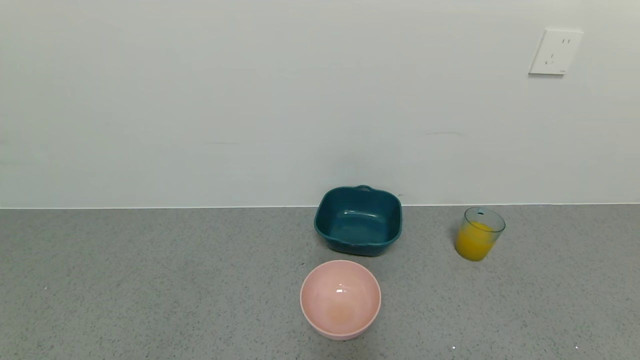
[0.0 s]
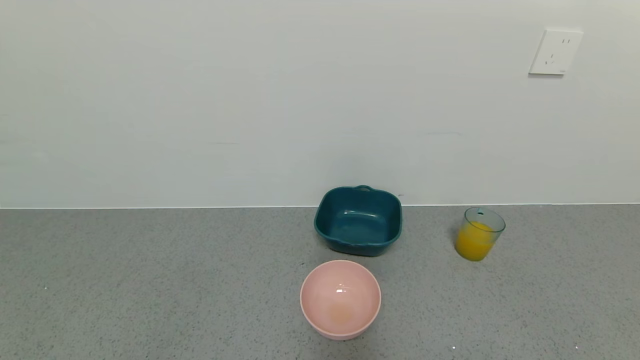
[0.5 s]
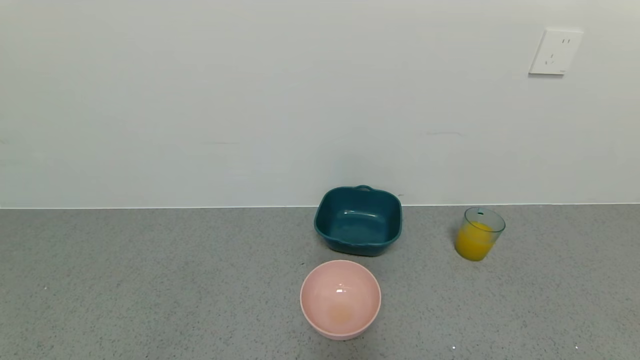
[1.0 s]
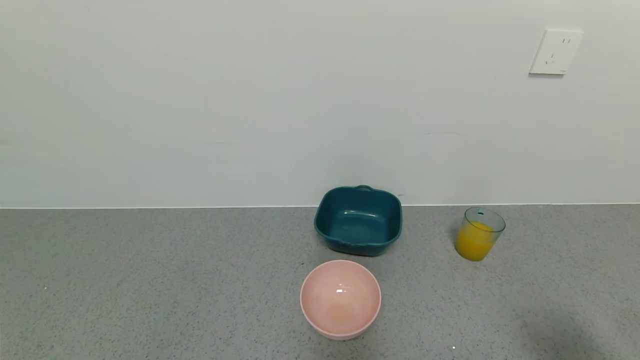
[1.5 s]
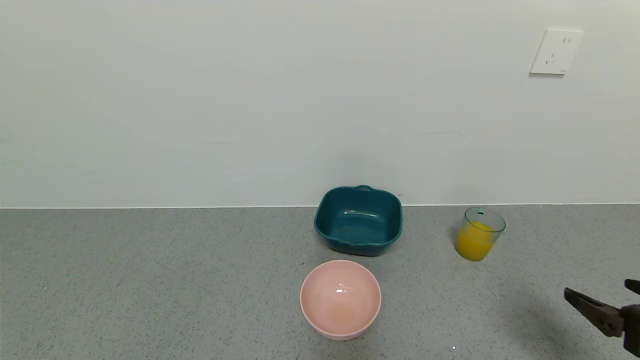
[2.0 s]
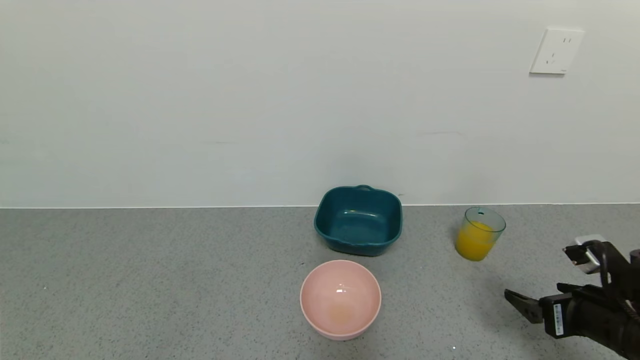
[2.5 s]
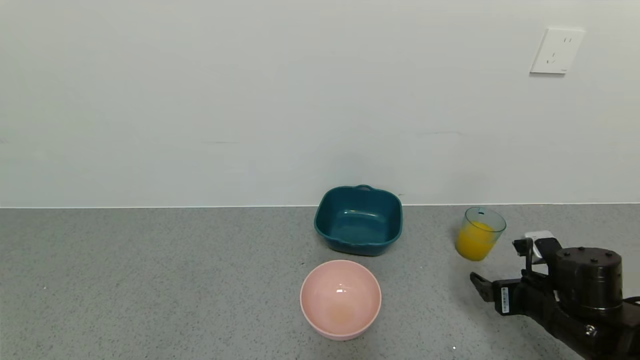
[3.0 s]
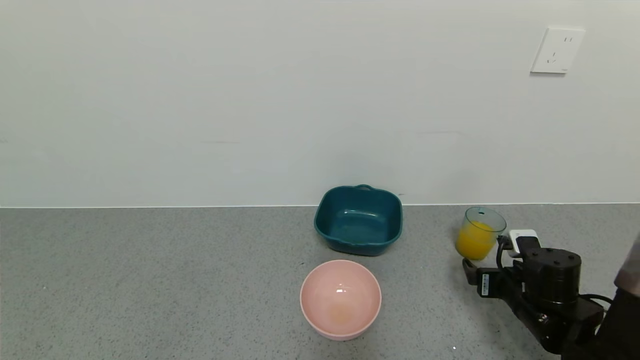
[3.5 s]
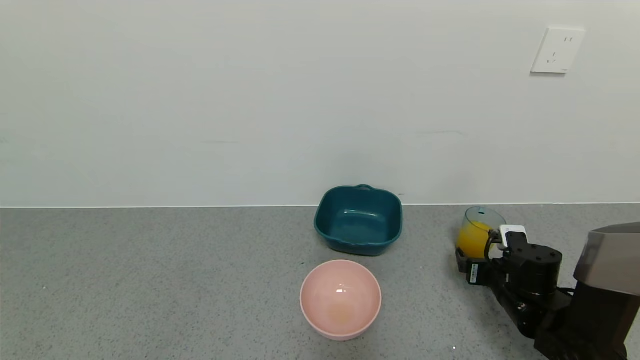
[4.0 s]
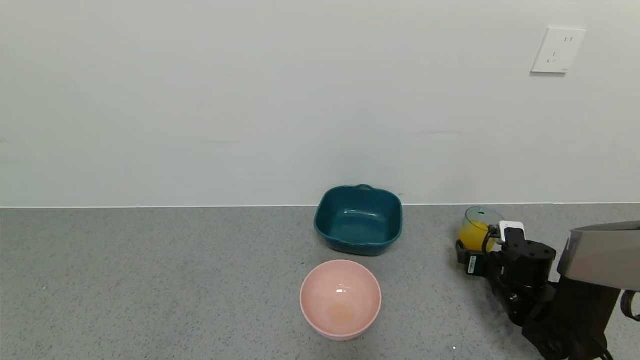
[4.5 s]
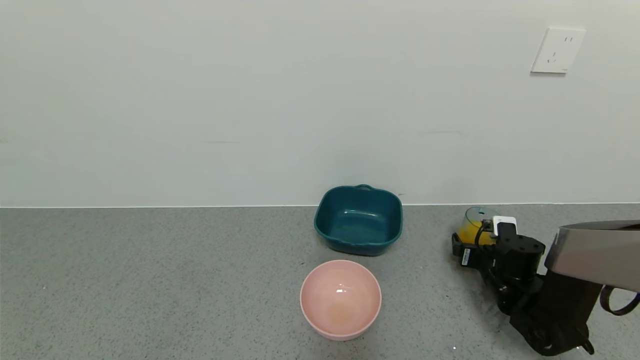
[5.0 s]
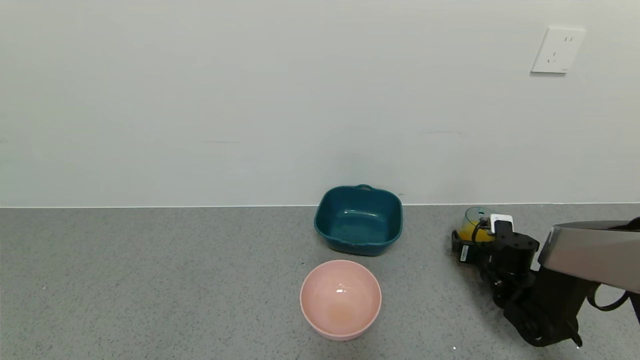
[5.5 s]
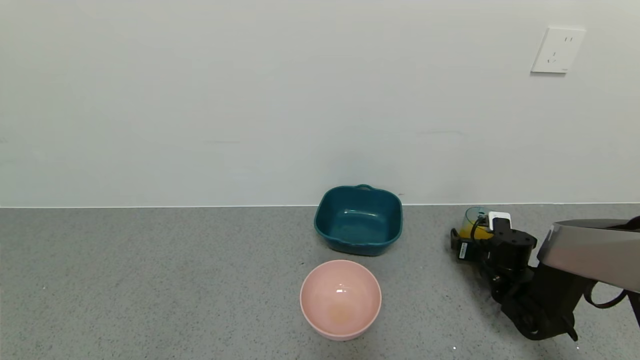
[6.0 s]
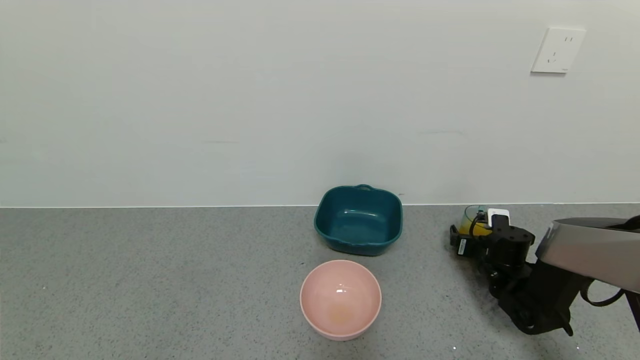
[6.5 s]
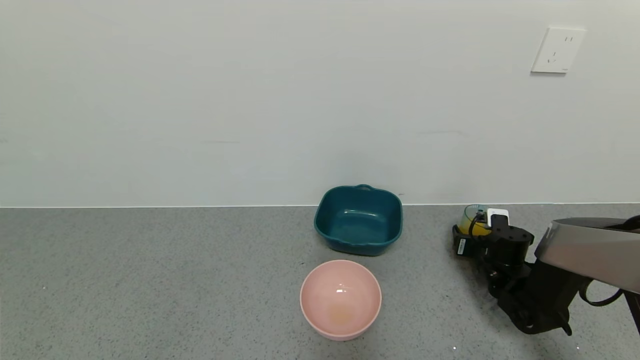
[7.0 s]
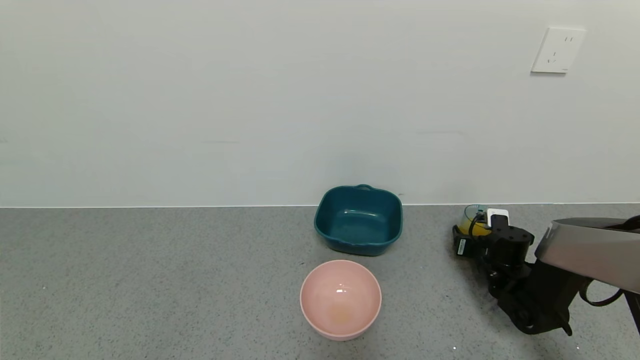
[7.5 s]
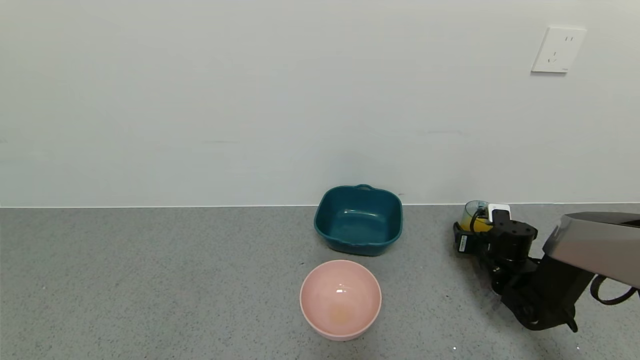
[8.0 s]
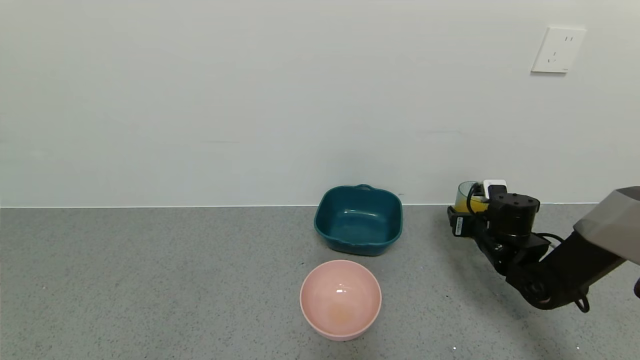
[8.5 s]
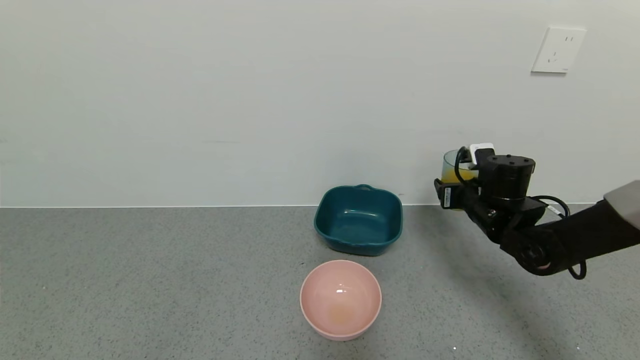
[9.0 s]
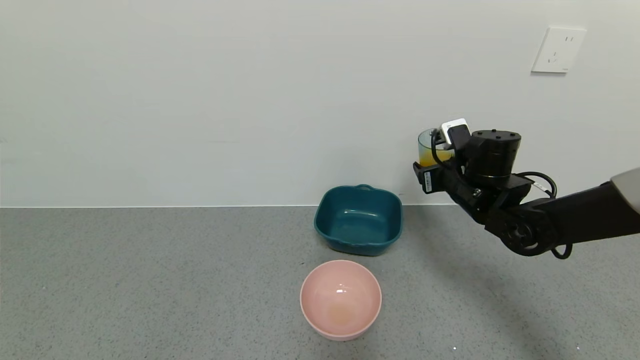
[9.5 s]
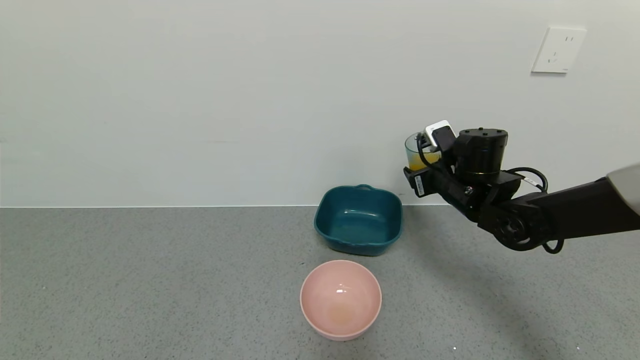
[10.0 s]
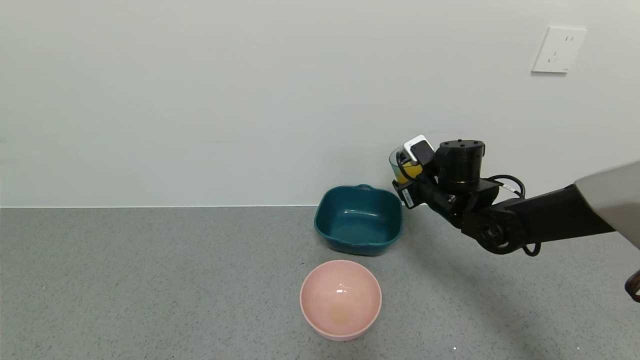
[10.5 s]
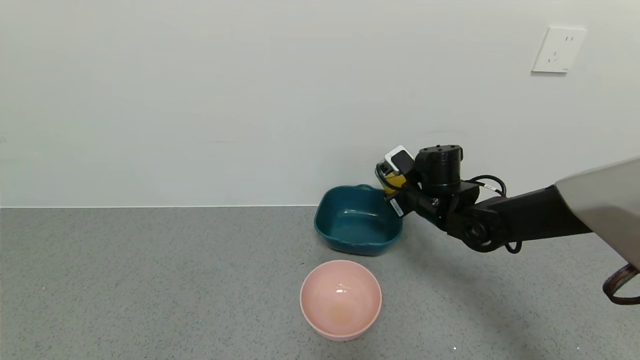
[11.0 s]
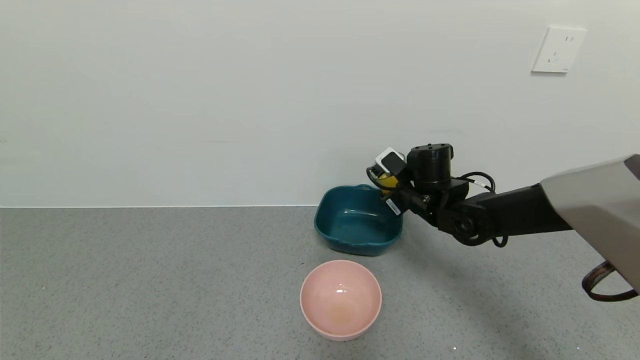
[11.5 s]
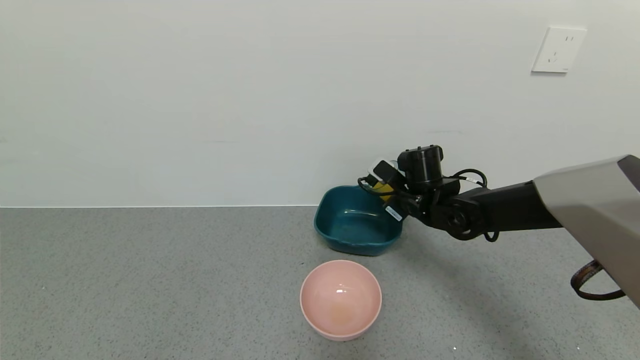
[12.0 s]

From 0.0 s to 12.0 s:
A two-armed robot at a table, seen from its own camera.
Task of the whole recording: use a gripper to pick up the cup and pour the liquid into a bowl or tray.
Step, from 0.0 s to 9.0 s: Pick up blue cup filled with orange juice with right gripper.
From 0.0 s to 2.0 s: The right gripper shifts about 15 cm forward and upward.
From 2.0 s to 4.0 s: The right gripper travels forward and downward by some 25 cm.
From 4.0 s to 6.0 s: The right gripper is displaced forward by about 5 cm.
From 6.0 s to 8.0 s: The right gripper closes.
From 8.0 s to 10.0 s: The right gripper heads upward and to the left, covering roughly 20 cm.
From 10.0 s to 12.0 s: The right gripper shifts some 5 cm to the left.

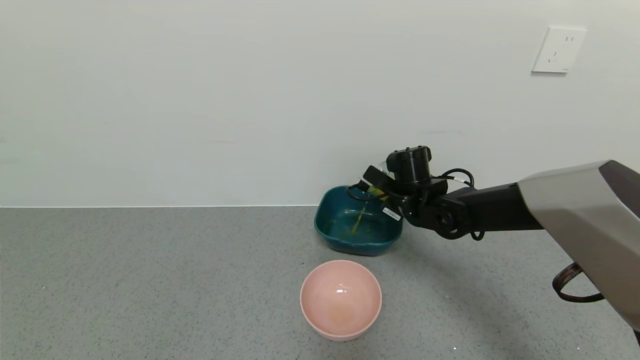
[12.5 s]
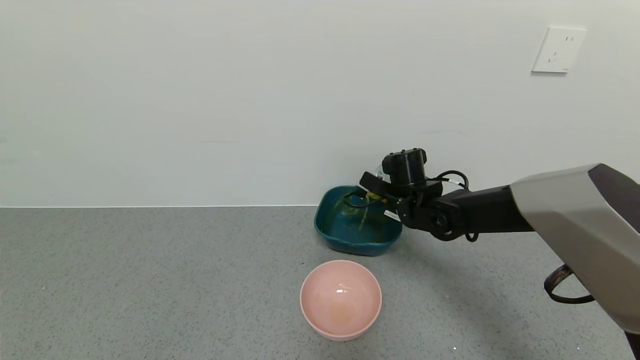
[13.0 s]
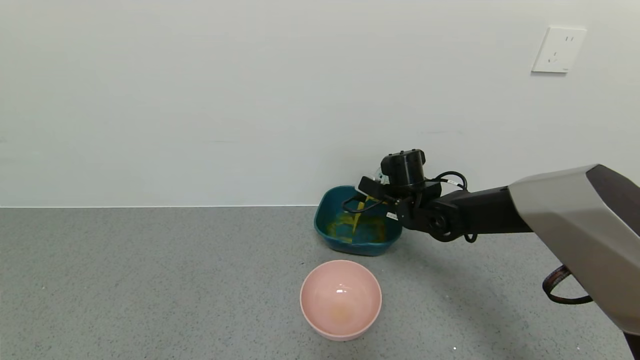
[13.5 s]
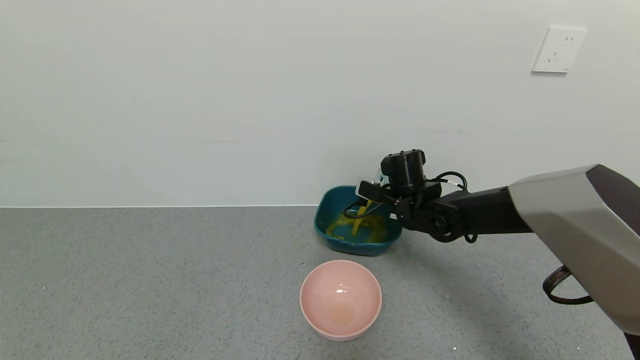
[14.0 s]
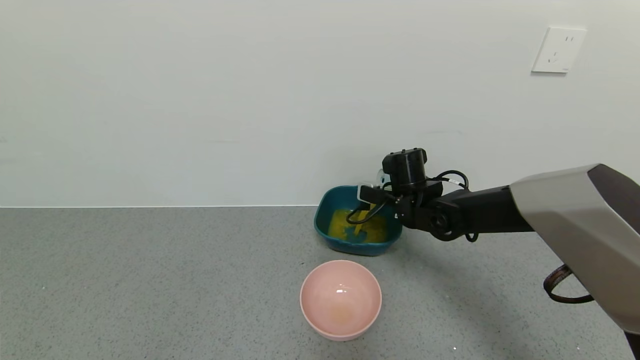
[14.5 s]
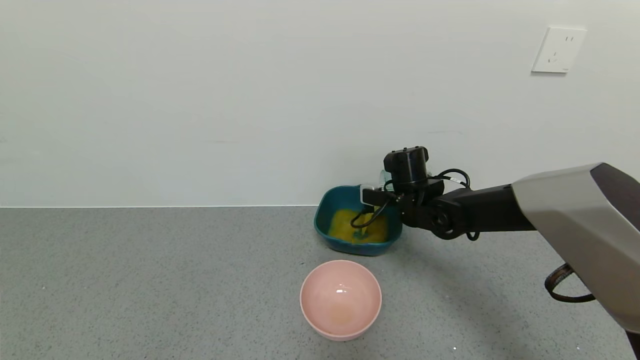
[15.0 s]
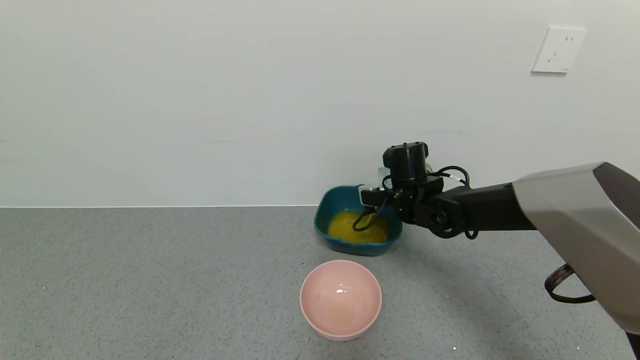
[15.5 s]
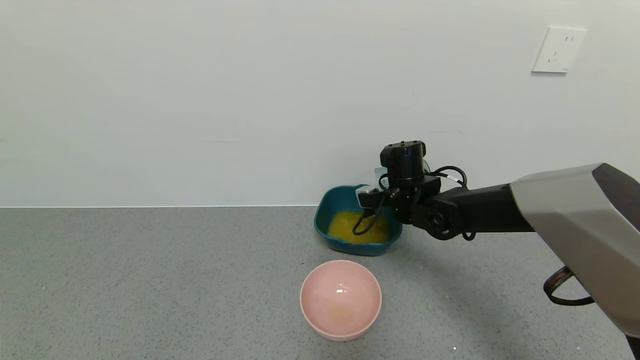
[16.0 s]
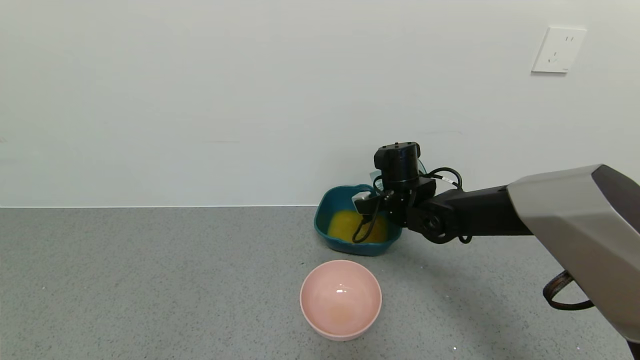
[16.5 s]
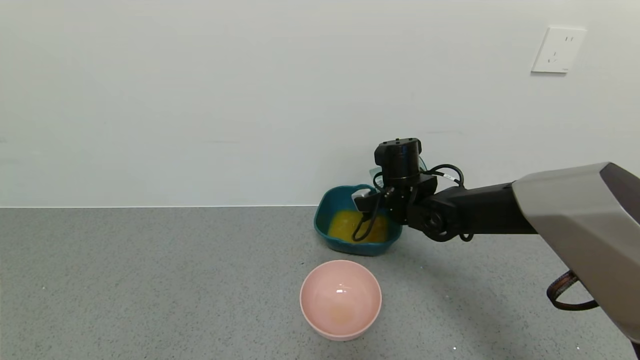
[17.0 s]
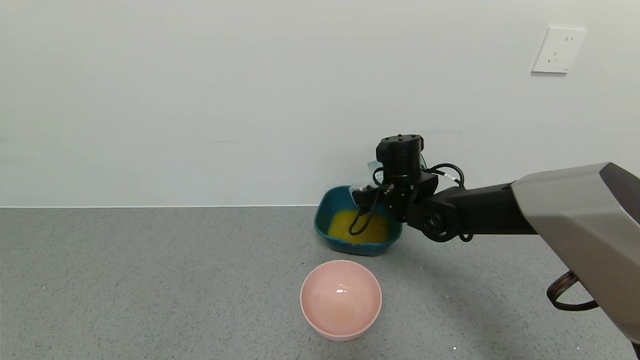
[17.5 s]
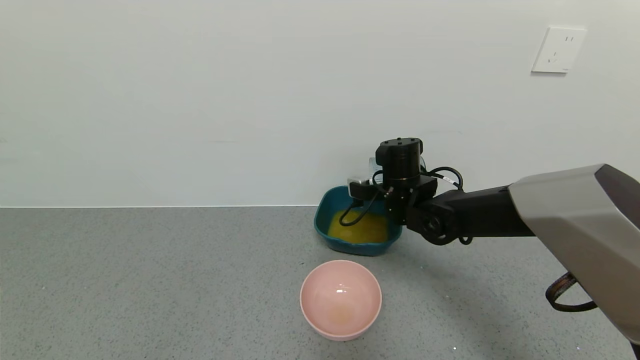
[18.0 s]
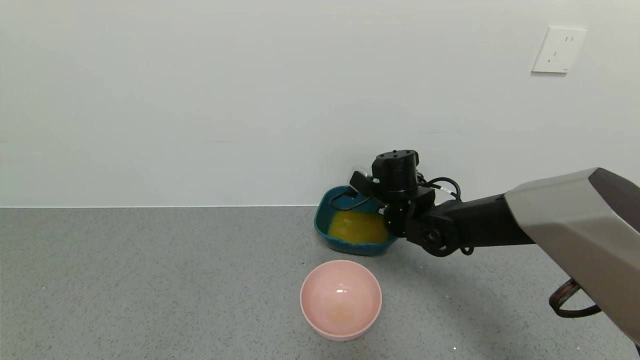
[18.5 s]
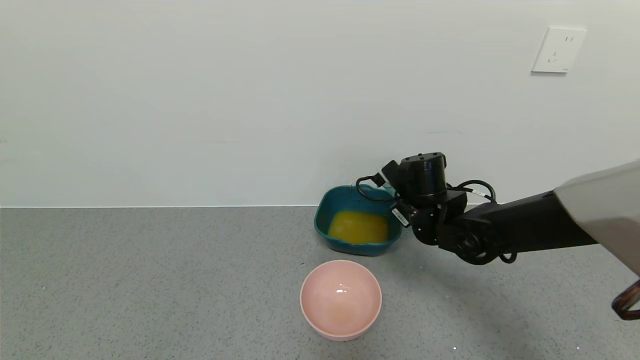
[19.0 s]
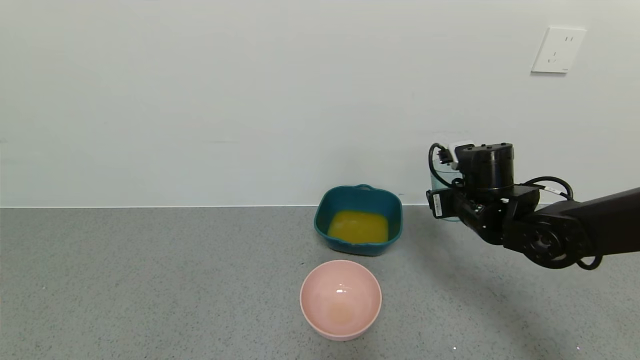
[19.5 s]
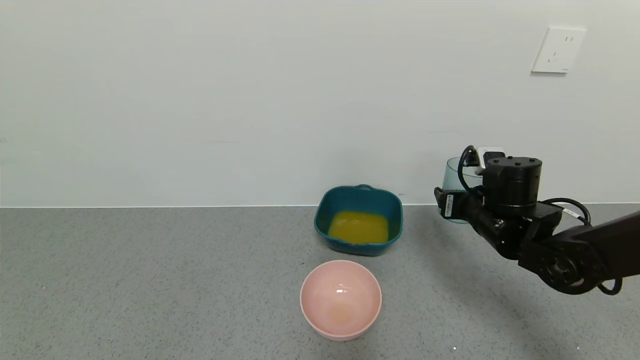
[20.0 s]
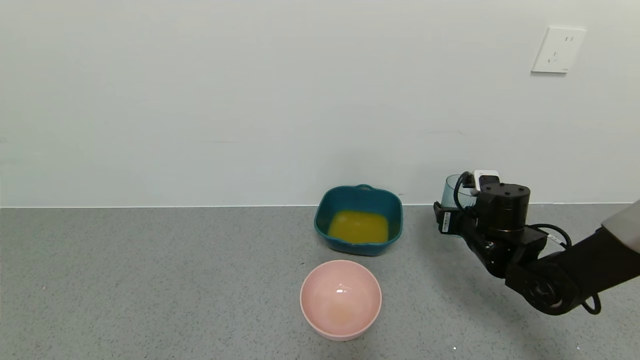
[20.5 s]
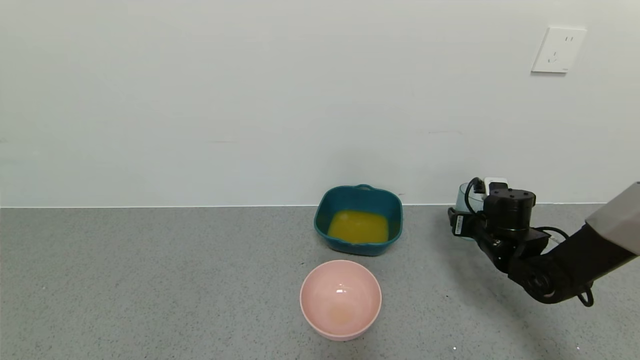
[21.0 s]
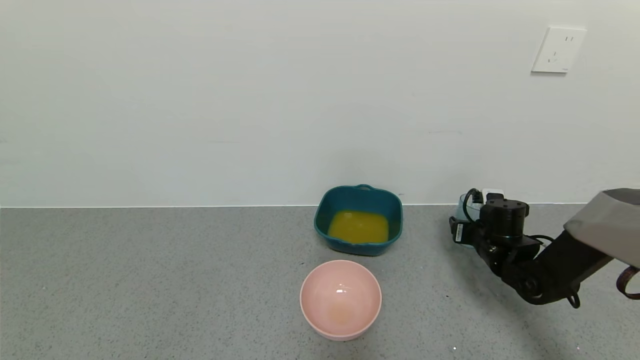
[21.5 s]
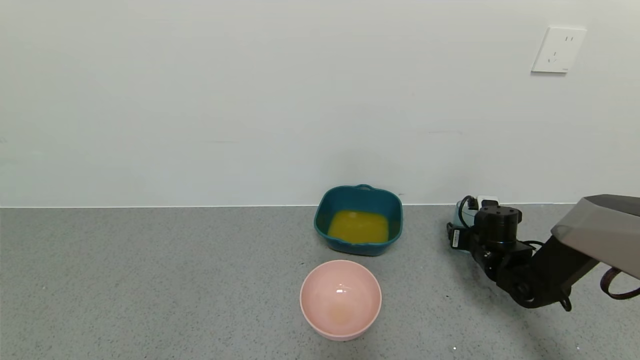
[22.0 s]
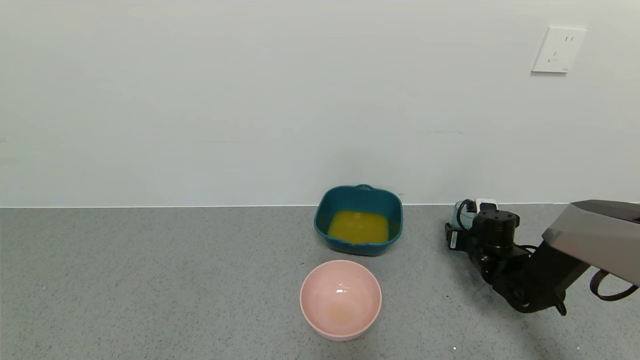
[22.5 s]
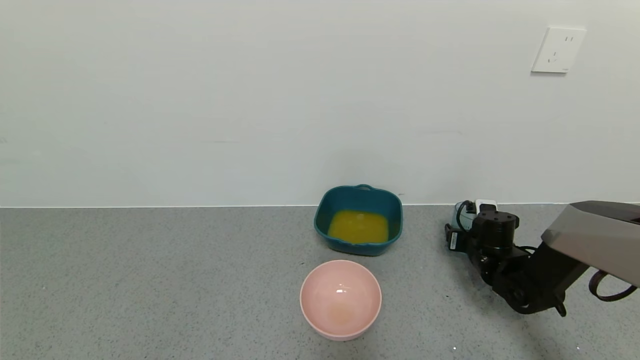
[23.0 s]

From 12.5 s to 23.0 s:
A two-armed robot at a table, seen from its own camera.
Task of the whole recording: use a gripper to pick up the cup and pour the liquid into a bowl or tray.
Step, from 12.5 s to 18.5 s: Pour the orange juice into the blue basin with right gripper.
From 19.0 s to 21.0 s: The right gripper shifts approximately 15 cm to the right and downward.
From 21.0 s to 23.0 s: The right gripper travels downward by approximately 5 cm.
